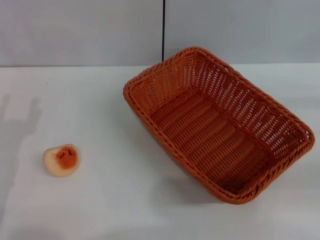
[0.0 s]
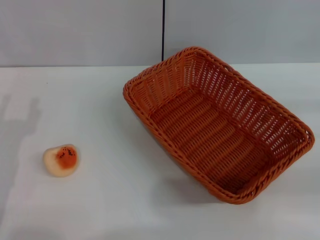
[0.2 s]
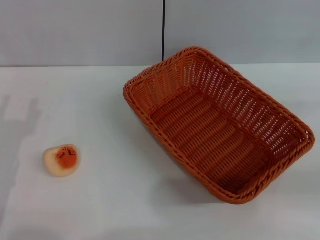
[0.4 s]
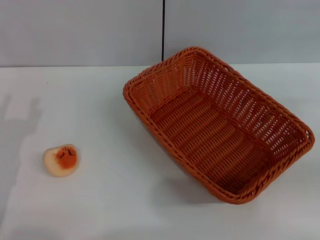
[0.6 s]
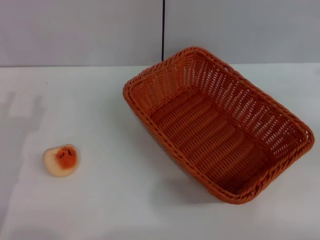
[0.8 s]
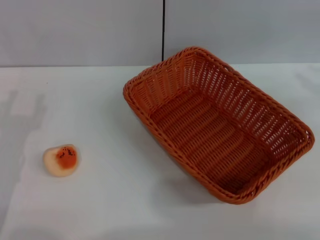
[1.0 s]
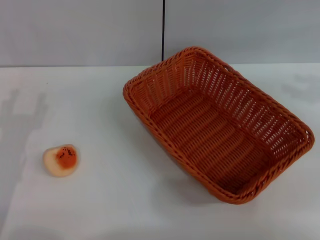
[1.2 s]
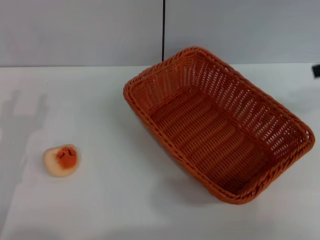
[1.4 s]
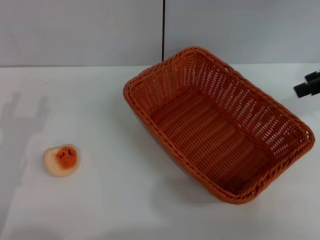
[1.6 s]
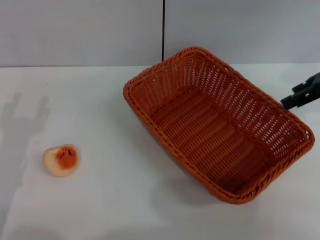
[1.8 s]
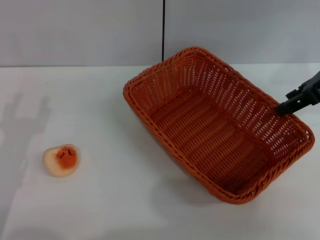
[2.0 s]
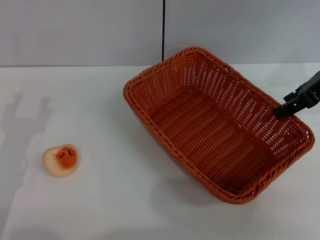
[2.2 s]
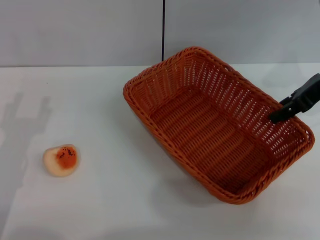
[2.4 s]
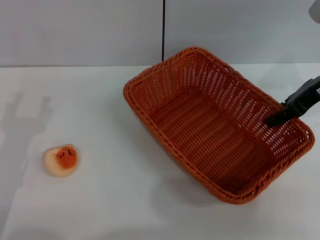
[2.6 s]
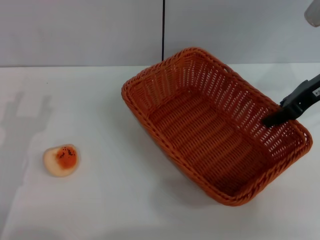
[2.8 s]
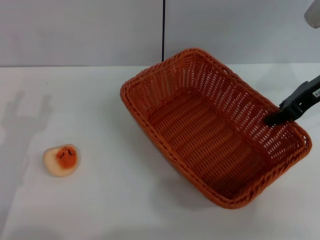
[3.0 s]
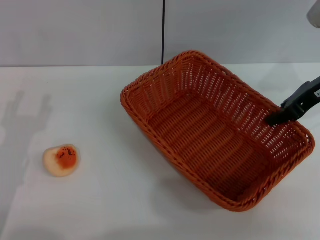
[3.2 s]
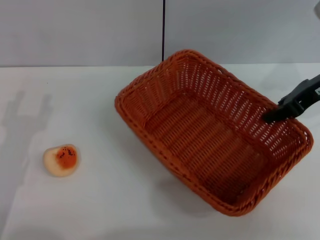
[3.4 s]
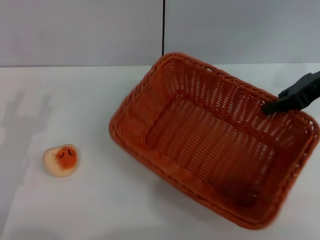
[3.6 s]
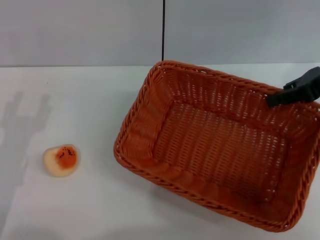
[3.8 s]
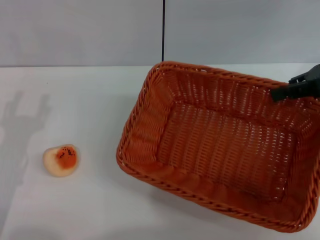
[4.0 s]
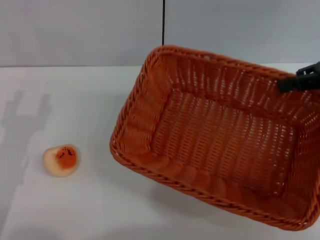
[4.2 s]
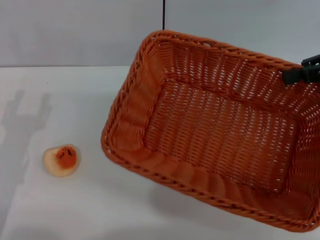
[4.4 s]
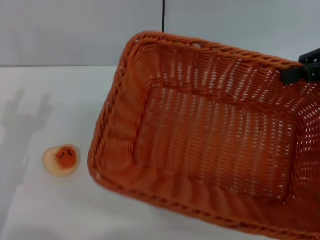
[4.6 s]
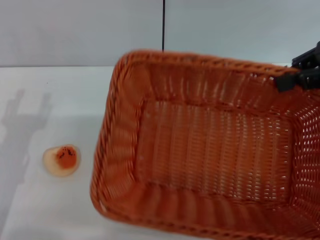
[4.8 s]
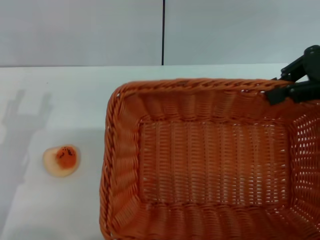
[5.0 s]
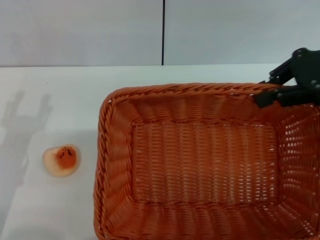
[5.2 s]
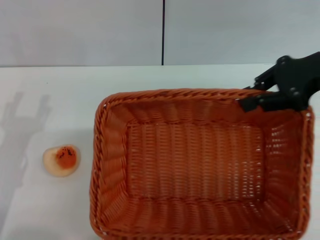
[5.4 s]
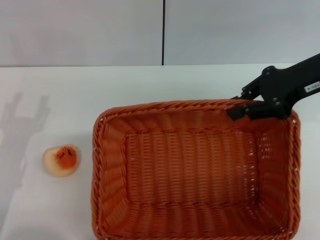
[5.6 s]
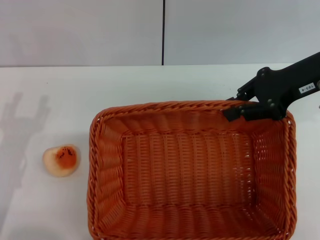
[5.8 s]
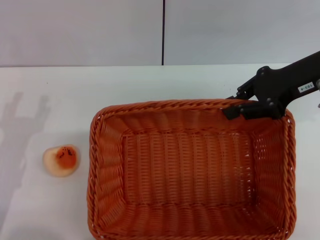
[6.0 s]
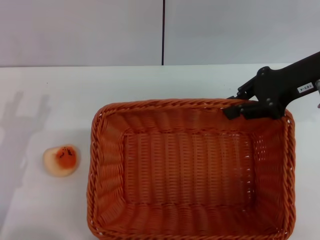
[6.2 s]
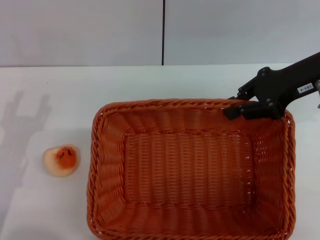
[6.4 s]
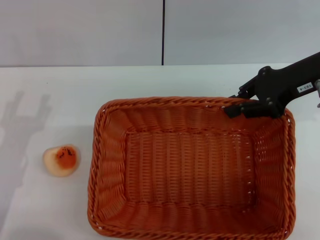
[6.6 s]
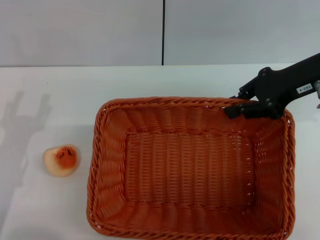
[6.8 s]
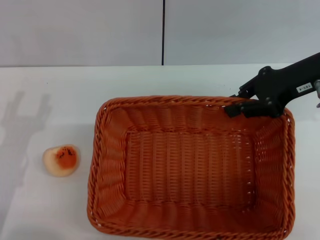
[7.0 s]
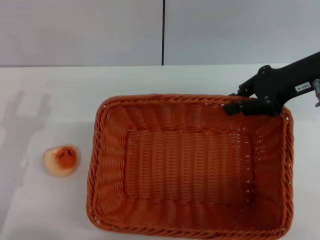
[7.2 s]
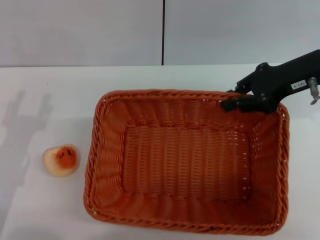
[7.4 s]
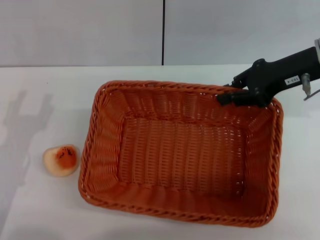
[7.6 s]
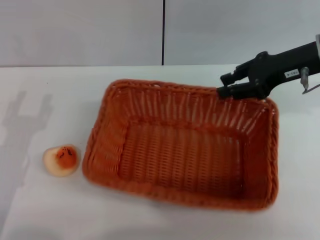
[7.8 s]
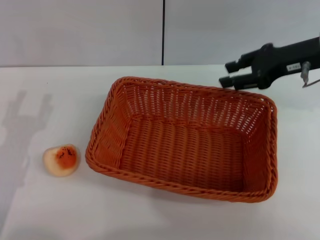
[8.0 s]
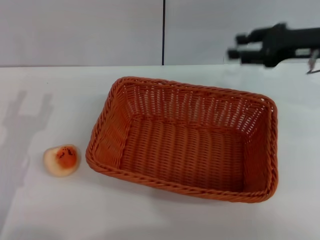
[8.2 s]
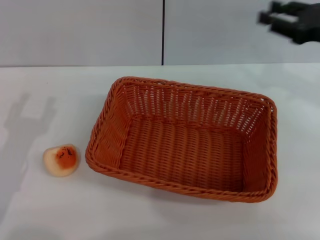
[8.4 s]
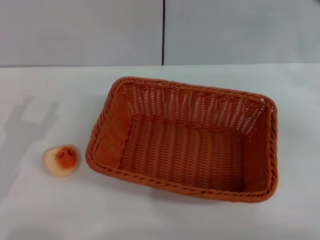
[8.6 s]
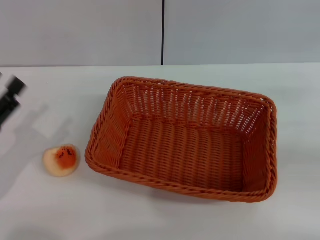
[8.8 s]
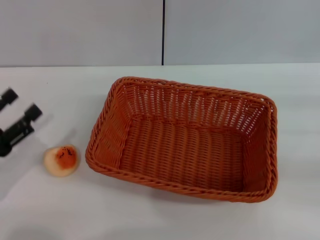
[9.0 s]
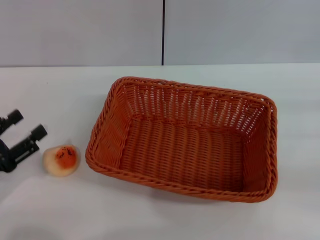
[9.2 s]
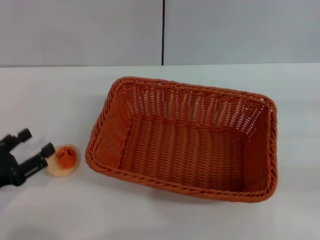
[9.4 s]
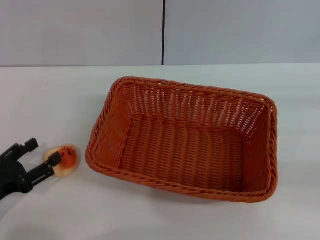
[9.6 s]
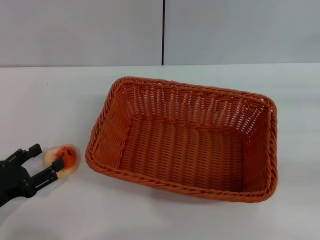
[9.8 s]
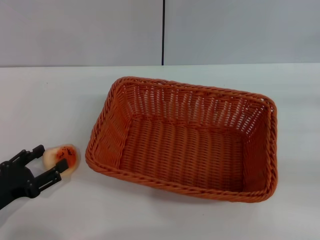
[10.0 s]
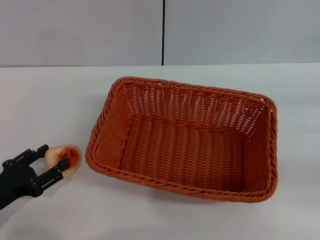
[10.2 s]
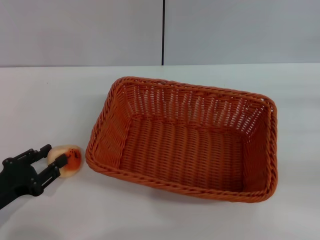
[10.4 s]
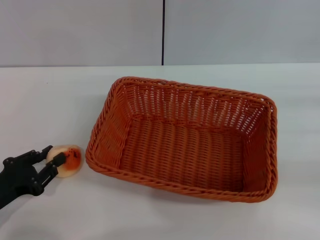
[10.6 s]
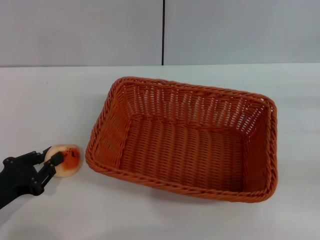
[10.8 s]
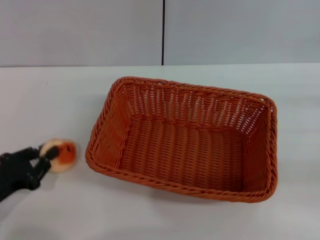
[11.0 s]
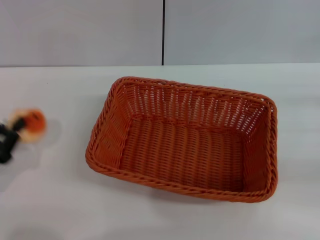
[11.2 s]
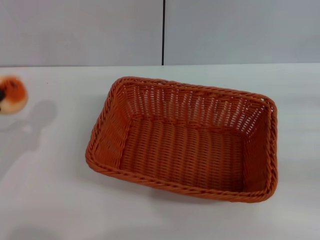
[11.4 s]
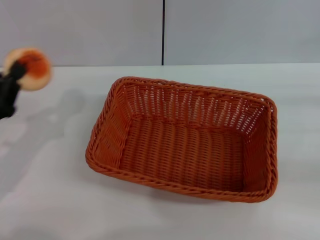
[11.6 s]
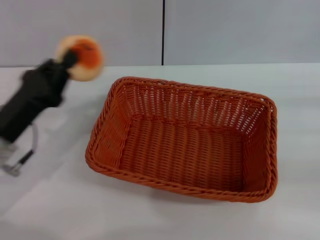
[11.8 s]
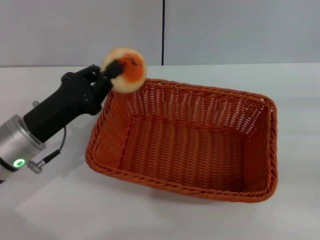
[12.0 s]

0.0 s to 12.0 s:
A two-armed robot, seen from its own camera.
Step, 0.0 to 8.0 s: Move the basket to the center of view with the right gripper.
Step, 8.2 to 11.4 s: Pick up the egg yolk pastry with the left gripper.
0.0 to 1.6 s: The right gripper heads upward, forward and to the left, covering roughly 20 cm.
1.6 to 3.0 s: The right gripper goes approximately 10 cm to the left and downward, and closes its fingers.
3.0 to 4.4 s: The right gripper travels to the right and upward by approximately 10 cm.
4.4 to 6.0 s: The right gripper moves to the left, approximately 10 cm.
6.0 to 7.6 s: The grippers stay close to where they were, moving slightly.
7.6 to 9.0 s: The right gripper heads to the right, backward and downward, covering some 25 cm, and opens its fingers.
9.0 to 10.4 s: The left gripper ends up approximately 5 cm from where it was.
10.4 to 12.0 s: The left gripper is displaced to the right, forward and upward by about 15 cm, and closes up.

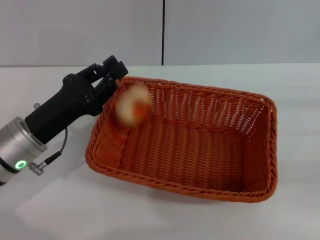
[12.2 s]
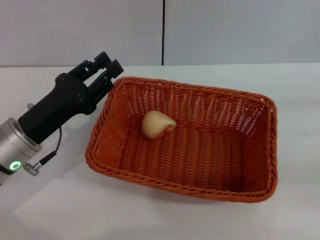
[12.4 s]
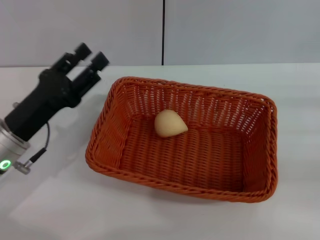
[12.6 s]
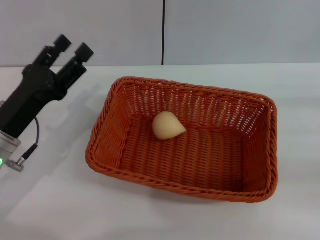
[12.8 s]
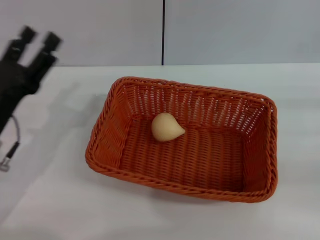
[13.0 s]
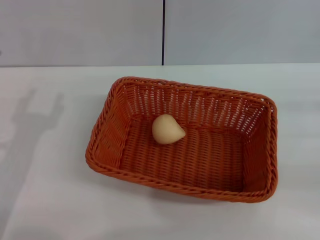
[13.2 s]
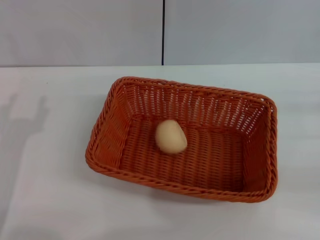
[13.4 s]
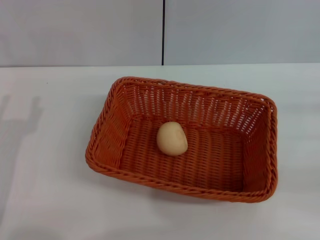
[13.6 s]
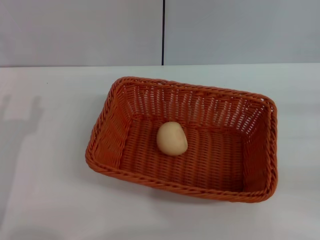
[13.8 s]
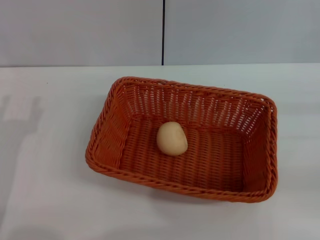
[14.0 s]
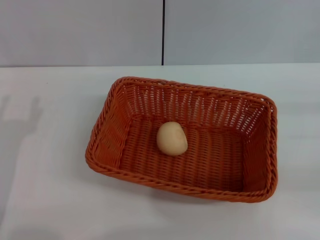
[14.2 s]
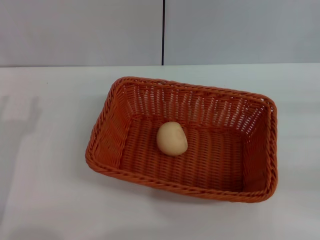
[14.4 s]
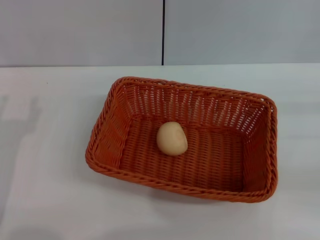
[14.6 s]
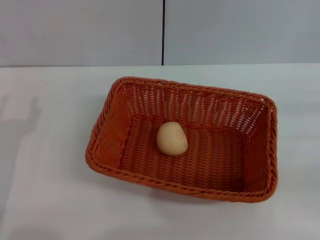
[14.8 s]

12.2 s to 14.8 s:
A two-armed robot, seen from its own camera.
12.2 to 13.4 s: The left gripper moves backward and to the left, some 10 cm, and opens its fingers.
13.4 to 14.8 s: Both grippers stay about where they are.

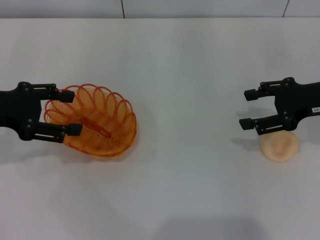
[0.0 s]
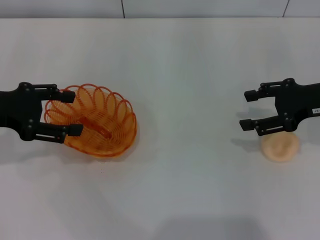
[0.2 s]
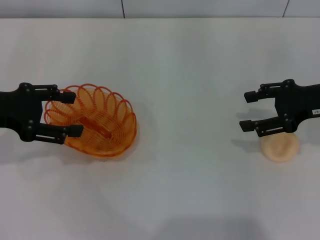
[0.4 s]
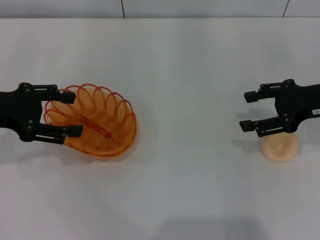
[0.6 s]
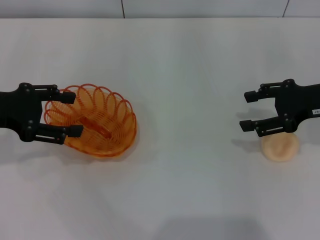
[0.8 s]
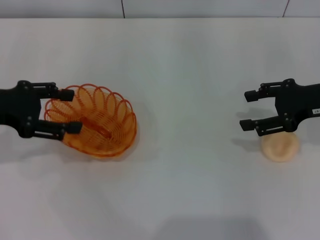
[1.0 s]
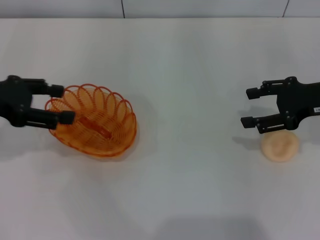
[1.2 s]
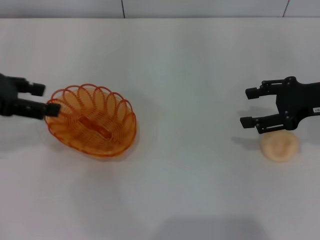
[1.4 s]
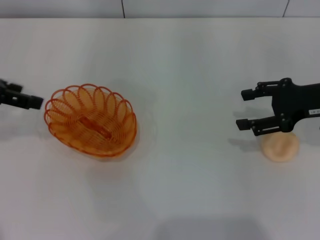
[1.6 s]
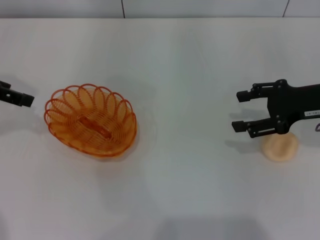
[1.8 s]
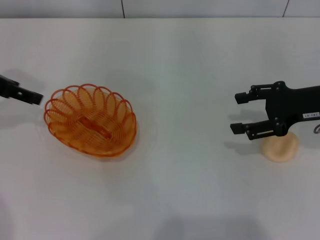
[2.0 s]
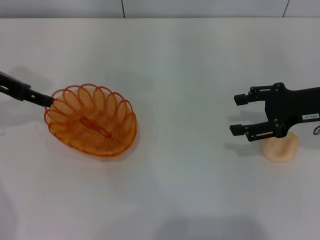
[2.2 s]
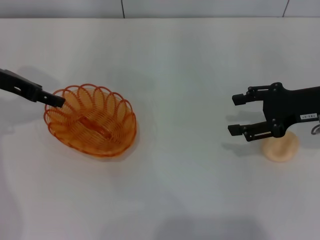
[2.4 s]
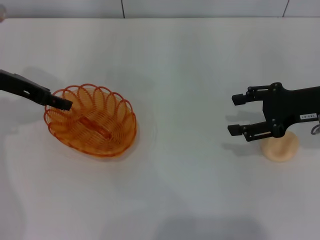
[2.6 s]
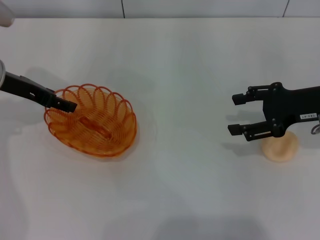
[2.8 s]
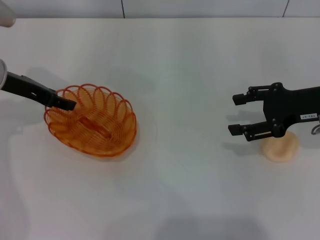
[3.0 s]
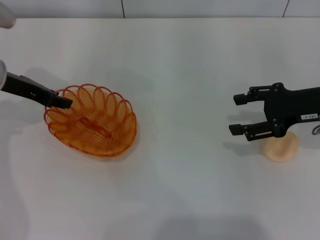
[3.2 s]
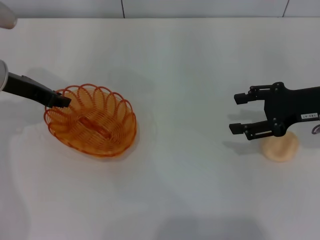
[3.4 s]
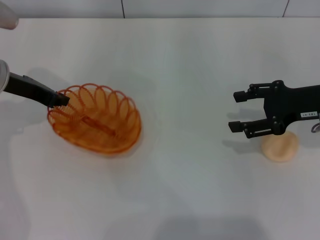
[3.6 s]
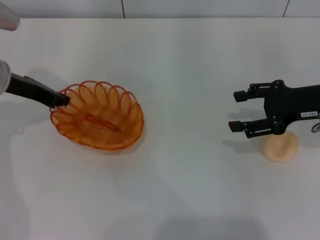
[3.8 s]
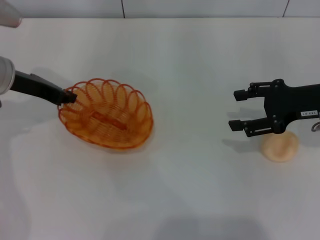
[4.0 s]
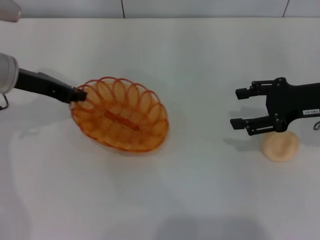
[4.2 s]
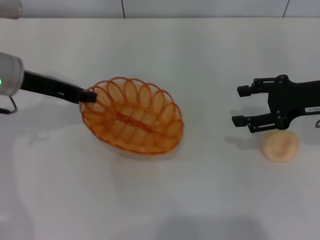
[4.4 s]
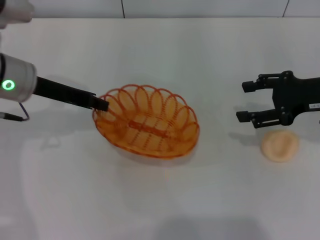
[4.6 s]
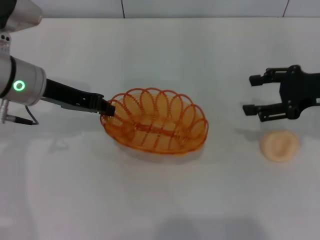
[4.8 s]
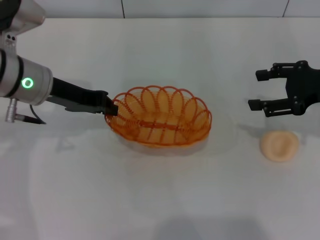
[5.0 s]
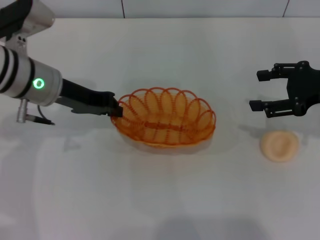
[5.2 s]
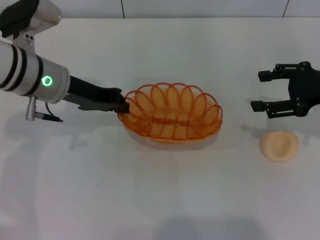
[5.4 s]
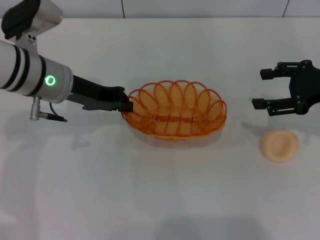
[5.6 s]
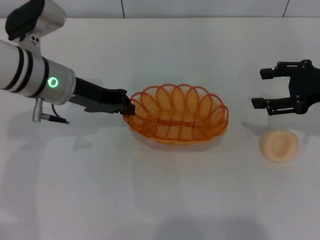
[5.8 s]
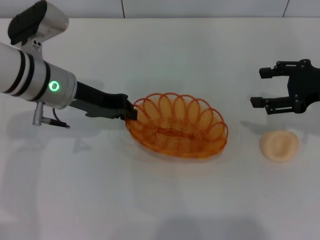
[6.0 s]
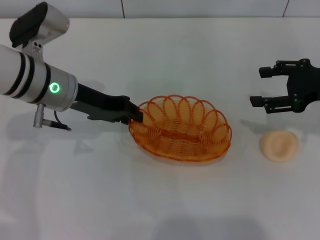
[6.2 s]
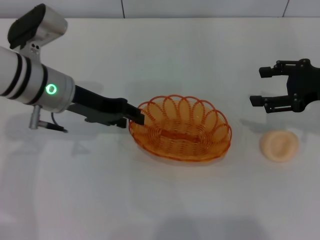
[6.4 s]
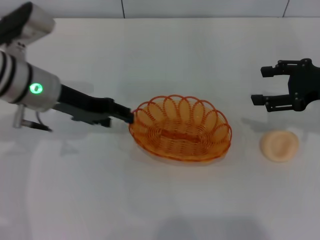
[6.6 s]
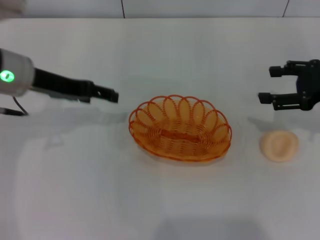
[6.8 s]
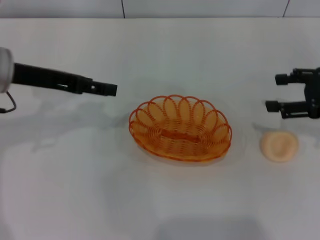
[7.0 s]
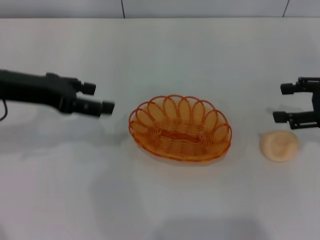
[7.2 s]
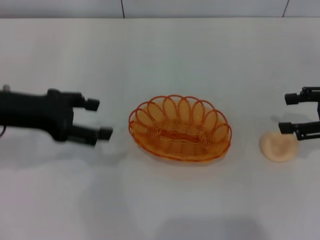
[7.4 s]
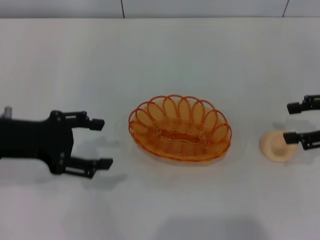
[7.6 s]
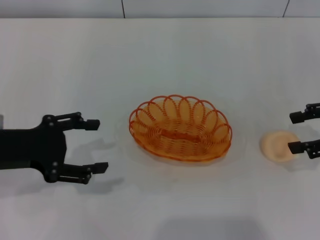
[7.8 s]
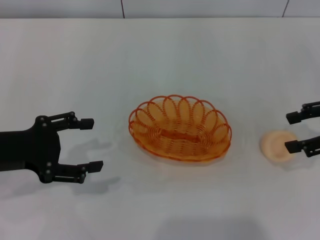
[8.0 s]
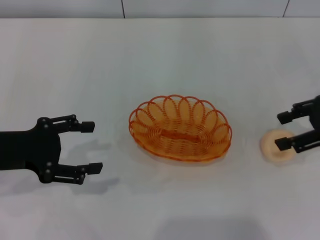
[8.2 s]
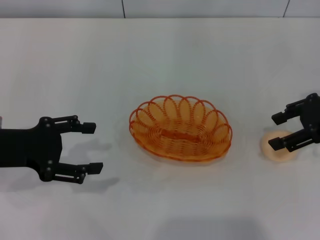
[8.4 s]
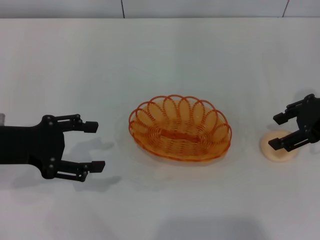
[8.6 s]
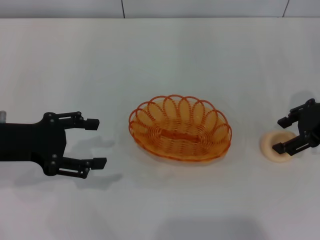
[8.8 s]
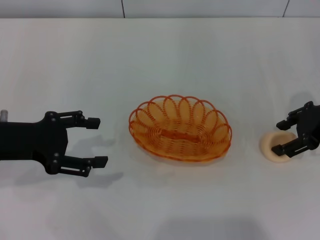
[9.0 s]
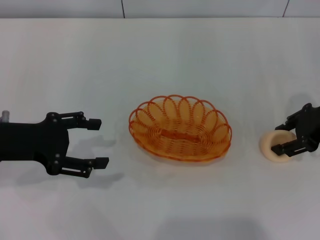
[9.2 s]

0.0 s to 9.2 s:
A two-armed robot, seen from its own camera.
Step, 0.0 to 4.8 s: Pick up the basket with the left gripper.
Step, 5.0 to 6.6 s: Place the basket in the center of view with the left gripper.
0.0 to 1.6 s: The left gripper shifts approximately 5 cm upward.
1.6 to 3.0 s: The left gripper is displaced downward, forward and to the right by approximately 10 cm.
3.0 to 4.6 s: The left gripper ends up roughly 5 cm from where it was, and closes up.
4.6 to 6.2 s: The left gripper moves approximately 5 cm.
6.2 to 7.6 s: The right gripper shifts by about 5 cm, while the left gripper heads to the left and backward, covering some 15 cm, and opens.
7.6 to 9.2 s: The right gripper goes about 5 cm to the left.
